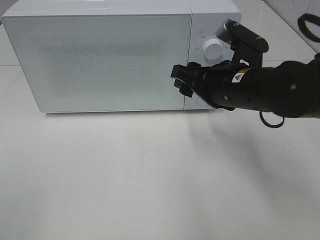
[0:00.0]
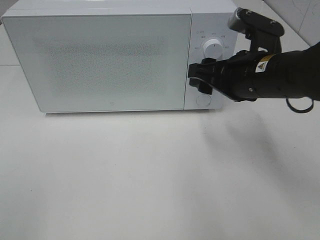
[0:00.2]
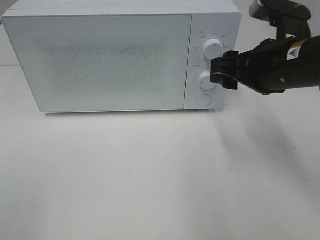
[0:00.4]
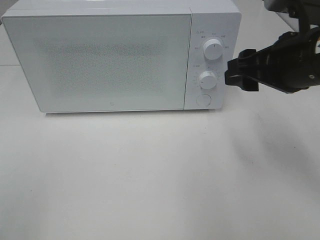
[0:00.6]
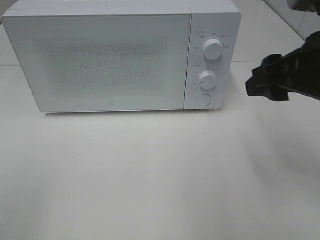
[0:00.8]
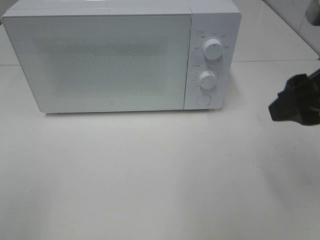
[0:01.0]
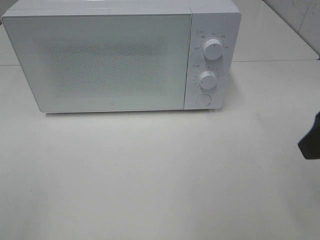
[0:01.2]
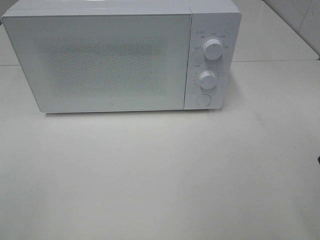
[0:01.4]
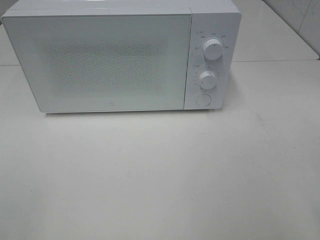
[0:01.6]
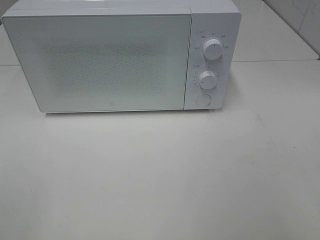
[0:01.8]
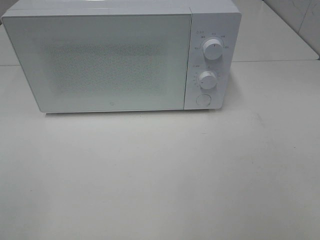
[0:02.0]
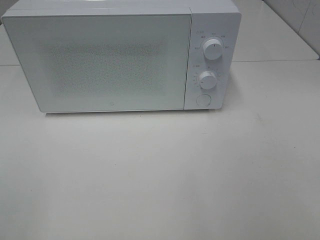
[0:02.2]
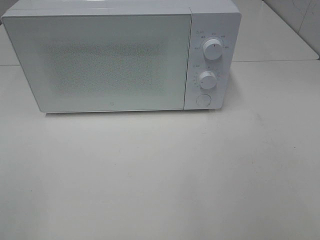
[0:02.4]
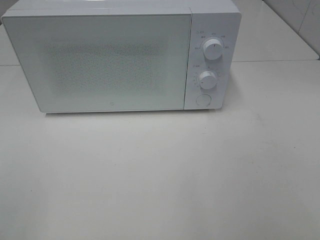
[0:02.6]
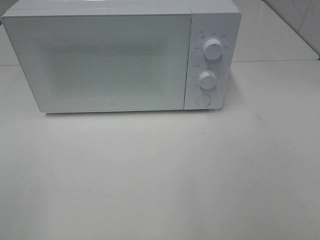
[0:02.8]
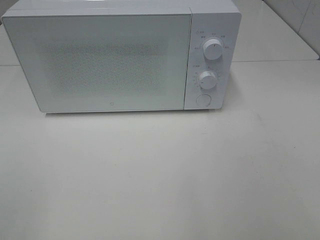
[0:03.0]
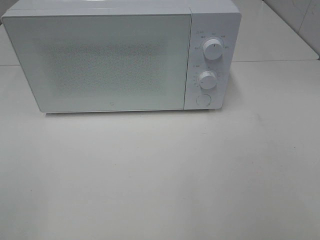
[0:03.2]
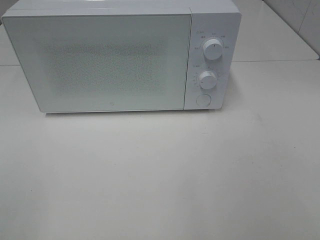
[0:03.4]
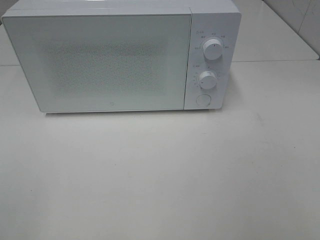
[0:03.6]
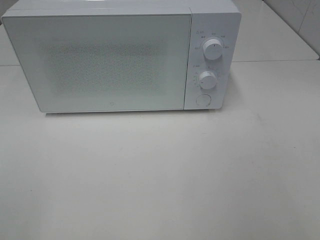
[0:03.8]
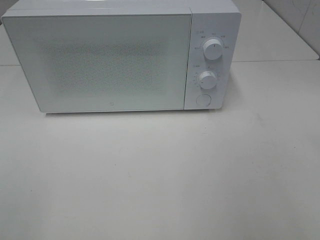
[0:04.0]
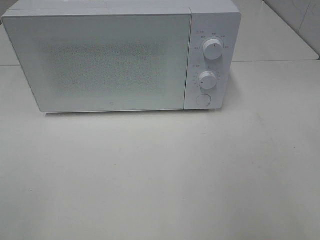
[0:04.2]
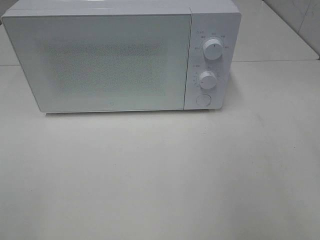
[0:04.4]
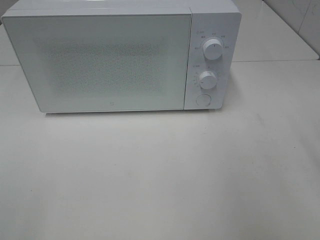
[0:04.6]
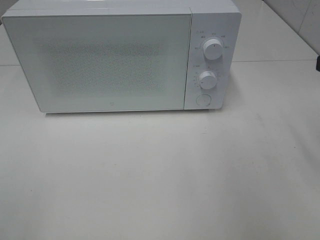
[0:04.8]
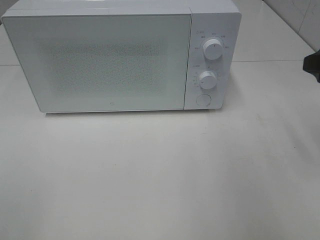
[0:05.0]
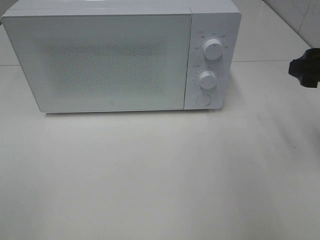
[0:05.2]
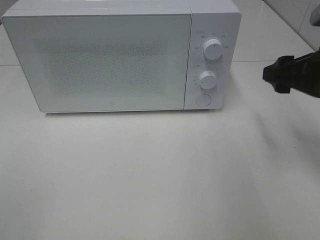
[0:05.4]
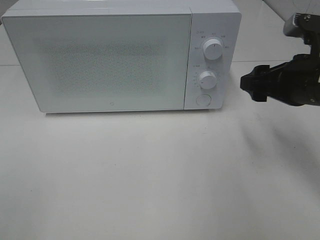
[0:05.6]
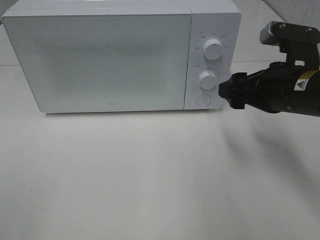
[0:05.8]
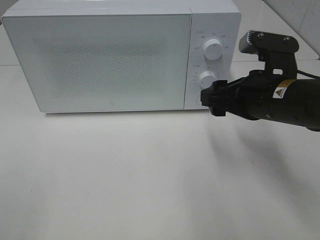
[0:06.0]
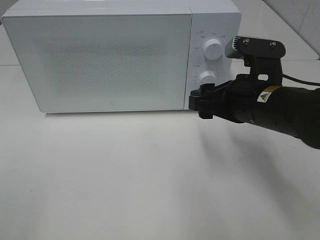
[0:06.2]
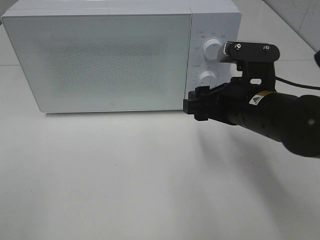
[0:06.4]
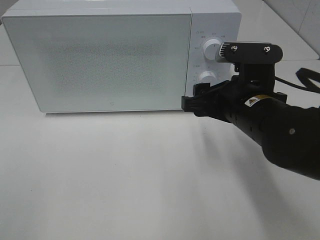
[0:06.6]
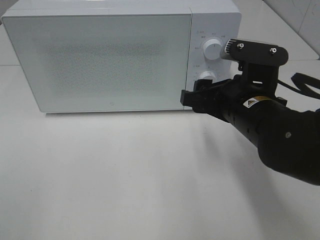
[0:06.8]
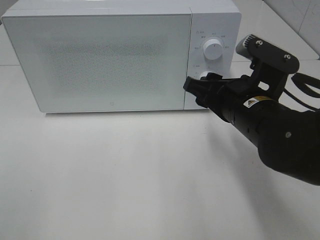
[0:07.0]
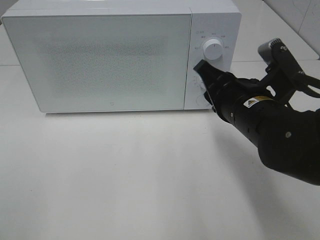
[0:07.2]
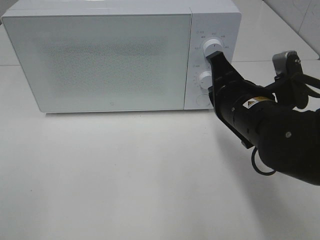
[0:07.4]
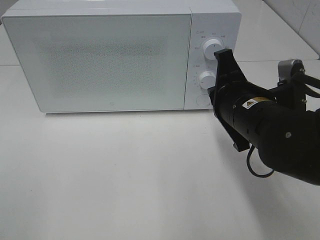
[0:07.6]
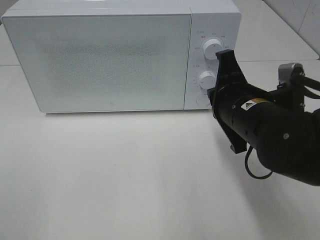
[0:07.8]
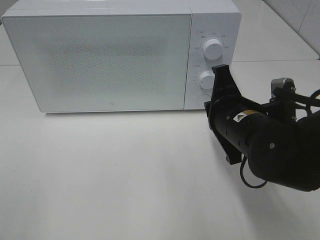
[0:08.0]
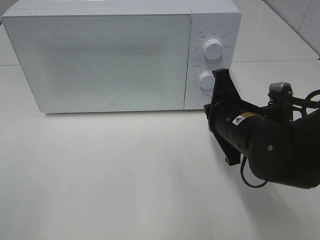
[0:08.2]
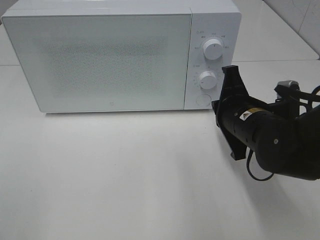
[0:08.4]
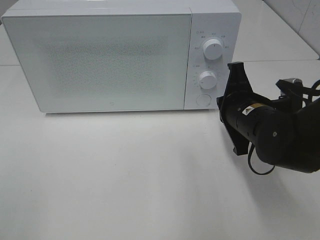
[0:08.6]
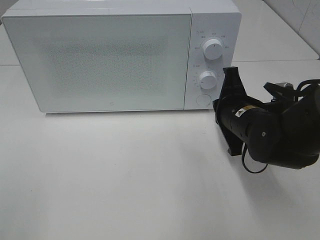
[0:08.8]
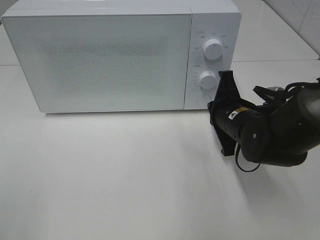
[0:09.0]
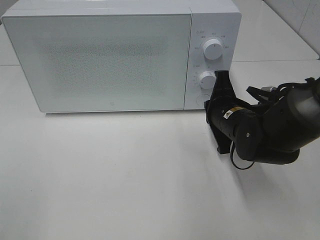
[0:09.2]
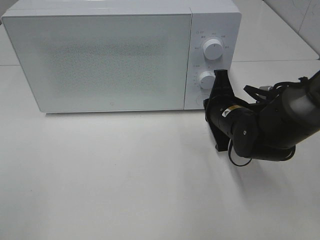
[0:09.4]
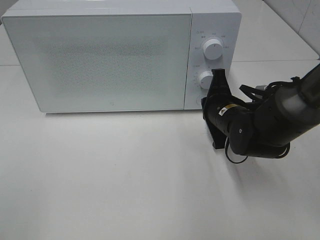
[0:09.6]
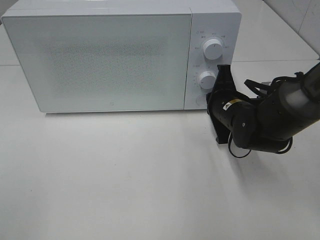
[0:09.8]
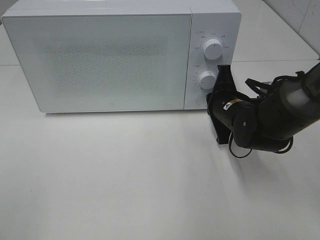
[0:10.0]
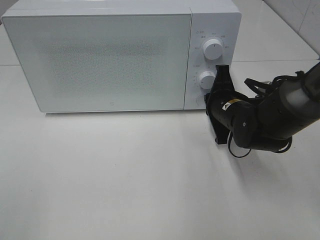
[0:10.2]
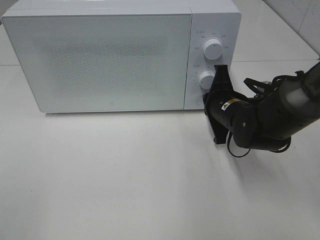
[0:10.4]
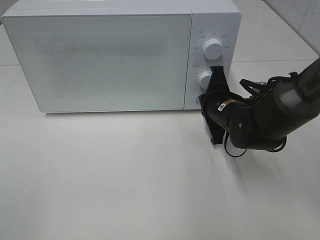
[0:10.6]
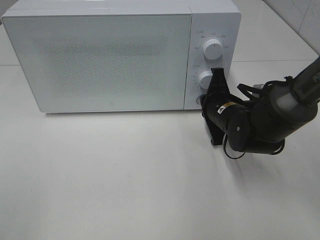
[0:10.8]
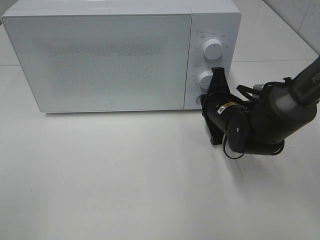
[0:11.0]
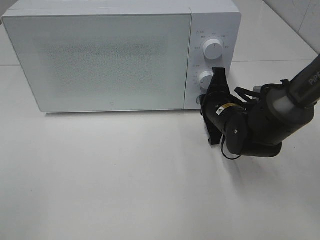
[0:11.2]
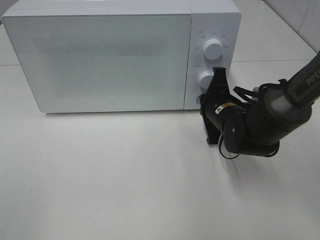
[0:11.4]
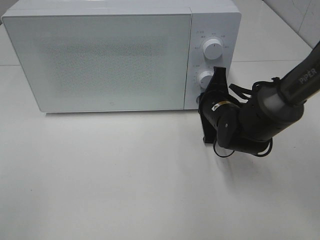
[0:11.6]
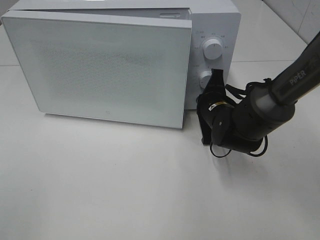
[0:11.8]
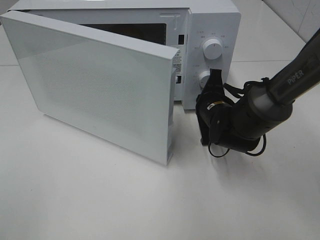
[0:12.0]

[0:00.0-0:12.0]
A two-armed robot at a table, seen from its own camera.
Task of the whole recording: Heat the burger.
0:00.0 to 0:01.6: The right gripper is displaced backward, to the right and upward by roughly 25 cm.
0:04.4 to 0:06.0: The right gripper travels downward, forward and to the left by about 20 cm.
0:06.0 to 0:07.6: The right gripper closes.
0:07.6 to 0:09.0: The right gripper heads downward and forward, covering some 10 cm.
0:09.0 to 0:10.4: The grippers make only small movements.

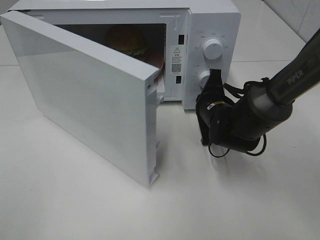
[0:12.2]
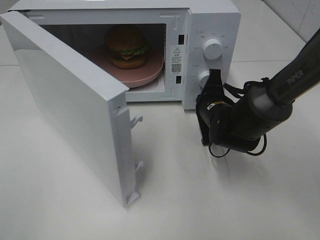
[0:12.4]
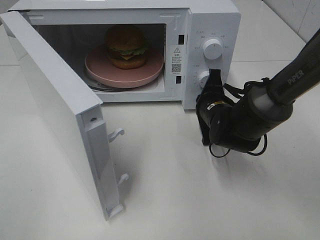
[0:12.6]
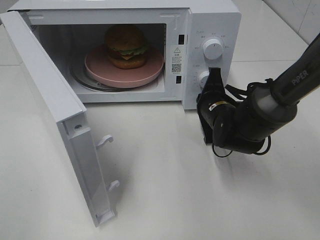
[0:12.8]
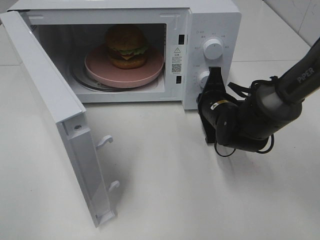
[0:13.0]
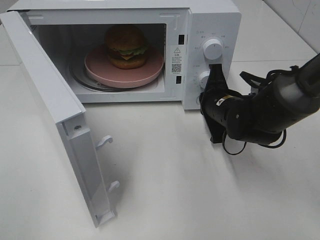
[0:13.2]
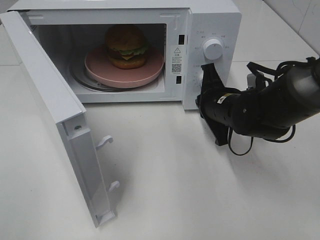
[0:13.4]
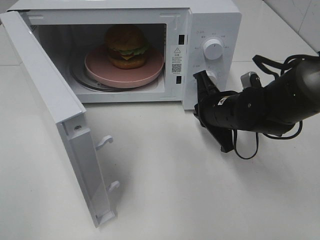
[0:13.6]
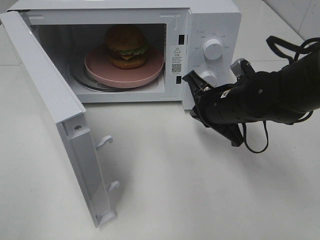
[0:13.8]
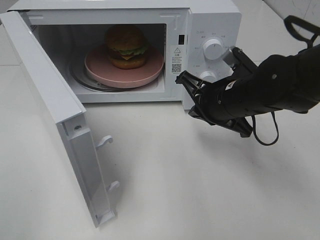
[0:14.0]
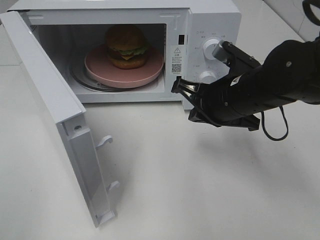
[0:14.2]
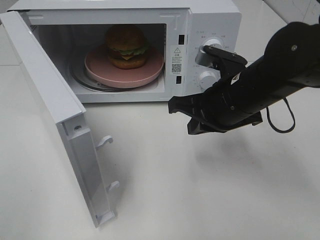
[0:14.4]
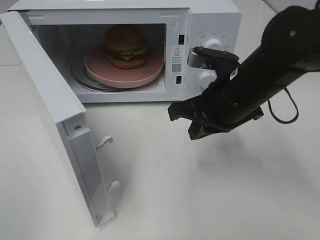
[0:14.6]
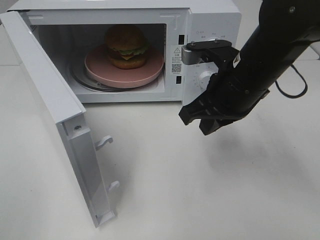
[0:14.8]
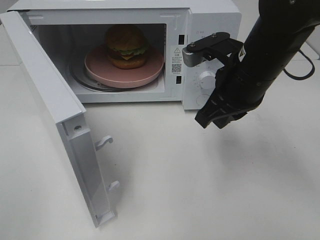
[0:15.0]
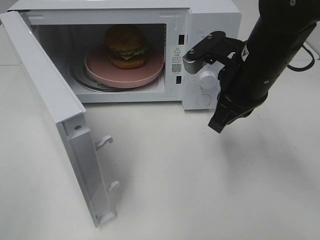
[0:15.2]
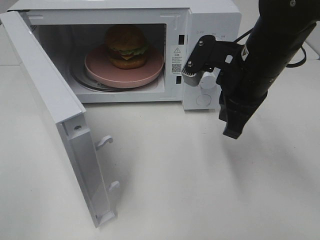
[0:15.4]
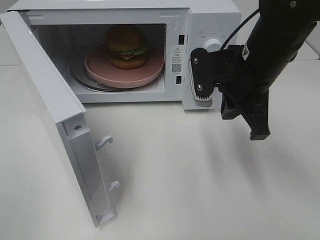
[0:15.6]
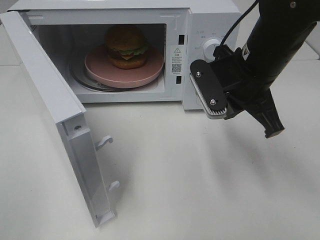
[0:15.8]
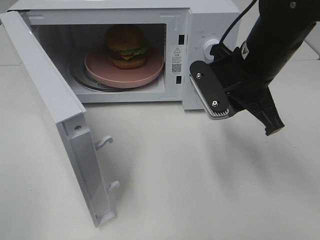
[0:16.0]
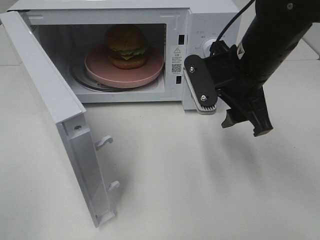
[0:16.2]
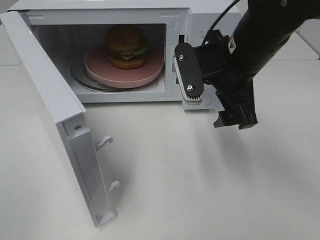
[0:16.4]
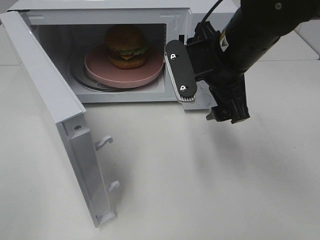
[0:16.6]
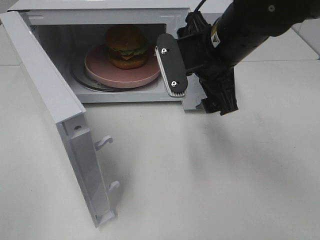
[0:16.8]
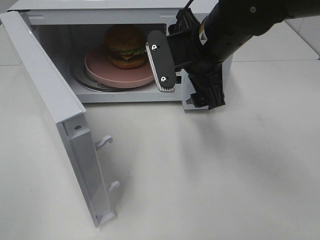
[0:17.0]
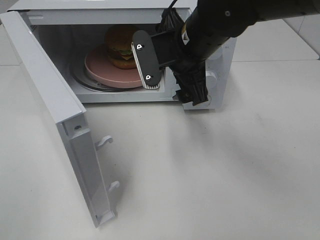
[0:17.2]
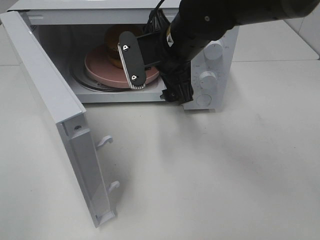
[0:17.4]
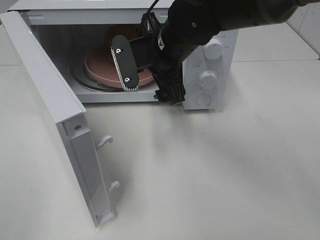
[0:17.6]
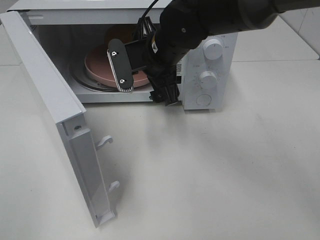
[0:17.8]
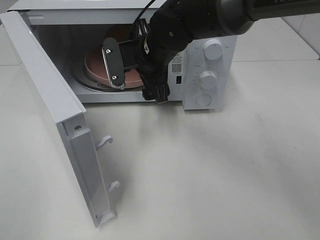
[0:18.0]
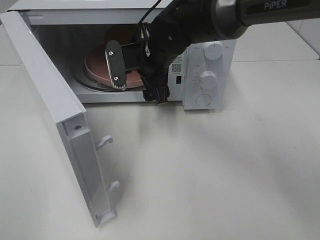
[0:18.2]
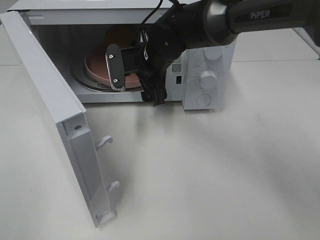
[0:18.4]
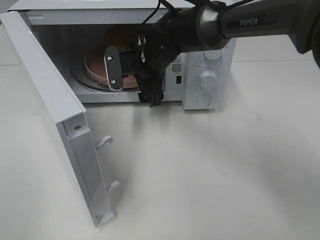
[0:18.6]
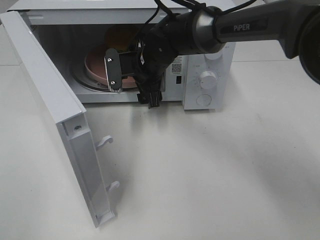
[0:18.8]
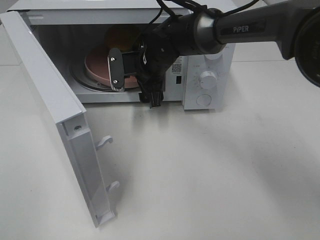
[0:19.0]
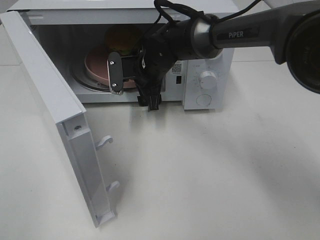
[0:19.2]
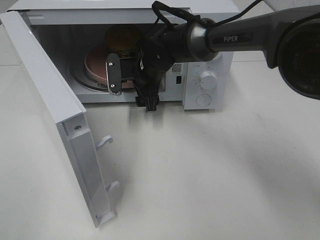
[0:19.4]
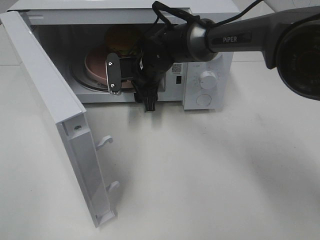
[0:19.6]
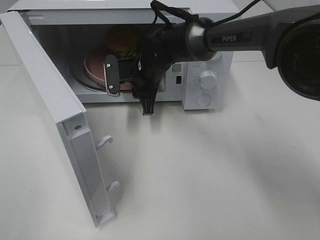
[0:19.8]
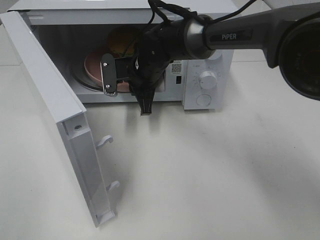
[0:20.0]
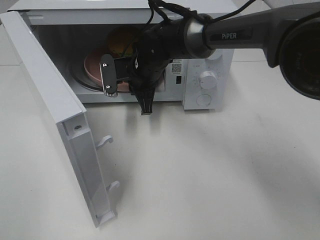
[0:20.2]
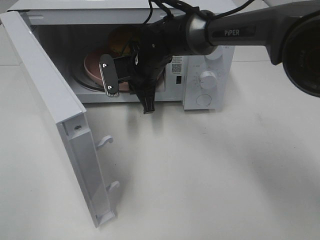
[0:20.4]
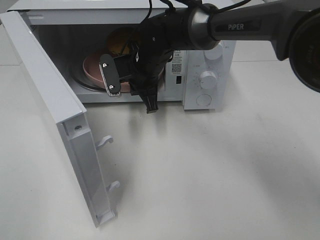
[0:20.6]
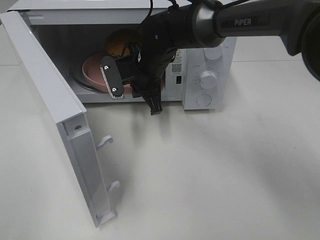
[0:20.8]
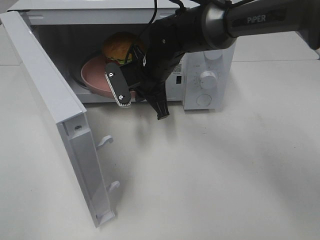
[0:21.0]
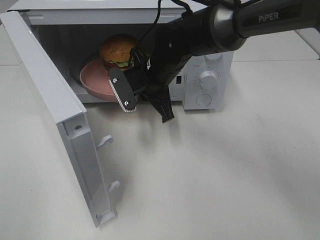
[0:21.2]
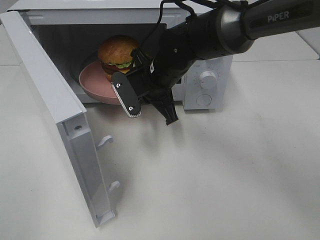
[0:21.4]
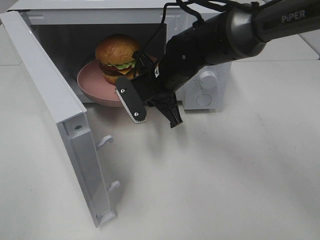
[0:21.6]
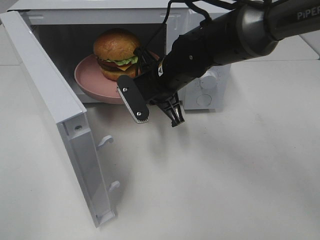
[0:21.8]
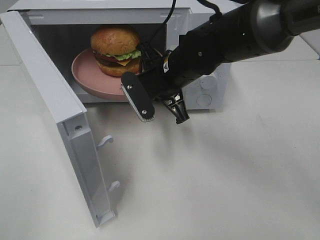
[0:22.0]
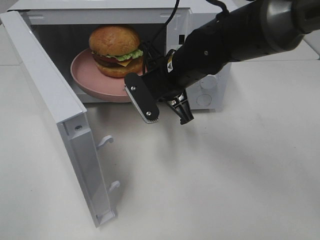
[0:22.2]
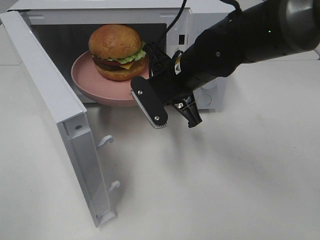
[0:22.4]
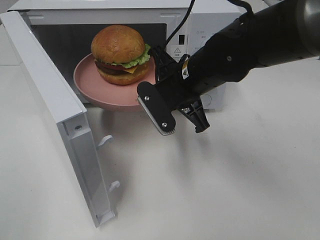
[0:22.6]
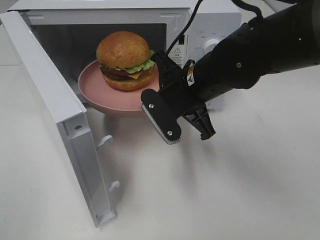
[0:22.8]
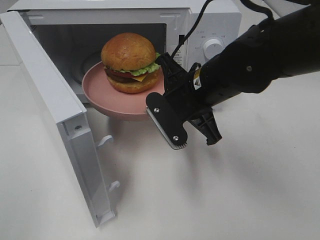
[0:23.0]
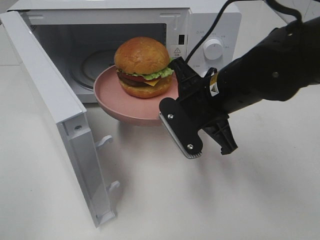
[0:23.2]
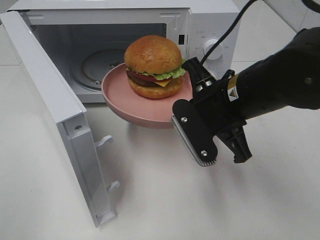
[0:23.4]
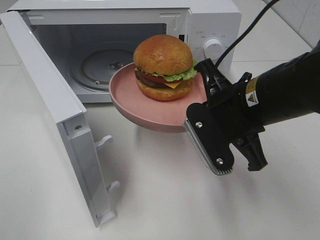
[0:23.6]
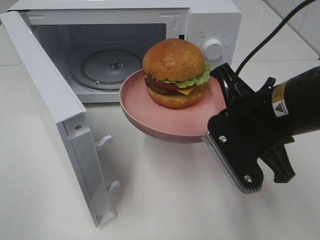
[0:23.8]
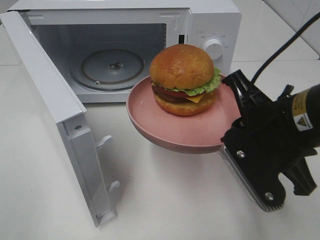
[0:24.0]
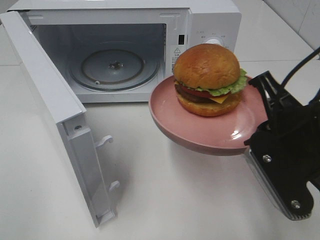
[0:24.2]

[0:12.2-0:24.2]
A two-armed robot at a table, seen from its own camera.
Task of the whole recording: Heat the burger.
Step, 0:13.4 to 0:19.8: Right hand: grab the plate with the hamburger.
0:12.2 to 0:13.8: The right gripper shifts approximately 5 cm upward.
0:13.8 to 0:15.2: The right gripper travels upward by some 10 cm.
0:15.2 to 0:16.6: The right gripper opens up.
0:16.6 to 0:18.2: The right gripper moves forward, to the left and downward, about 15 cm.
0:18.2 to 0:19.8: The right gripper goes some 5 cm downward, and closes up.
0:19.8 to 0:21.2: The right gripper shifts by roughly 5 cm.
0:21.2 to 0:22.6: The right gripper shifts some 10 cm backward and to the right.
0:22.6 to 0:24.2: The right gripper shifts approximately 20 cm backward and to the right.
